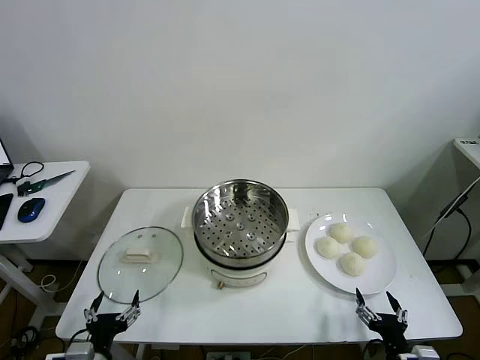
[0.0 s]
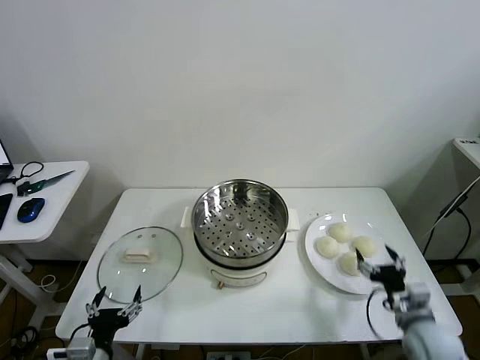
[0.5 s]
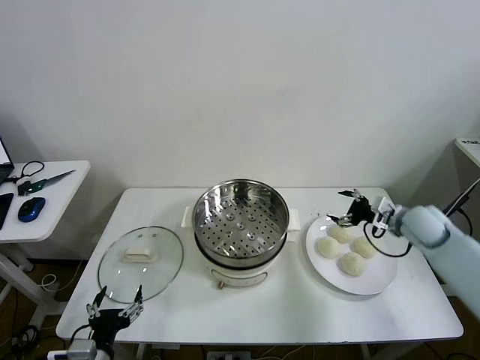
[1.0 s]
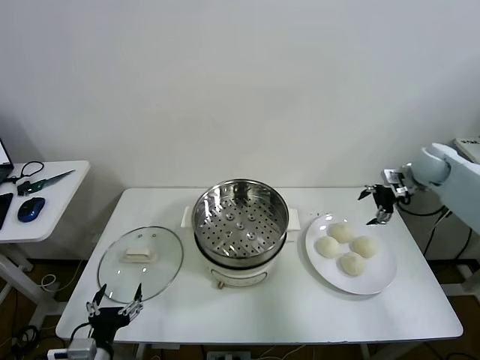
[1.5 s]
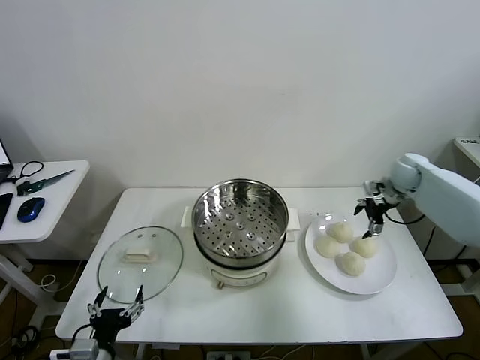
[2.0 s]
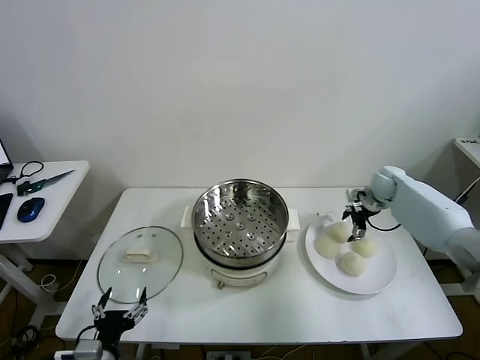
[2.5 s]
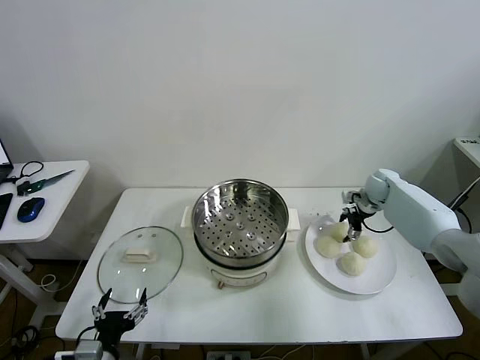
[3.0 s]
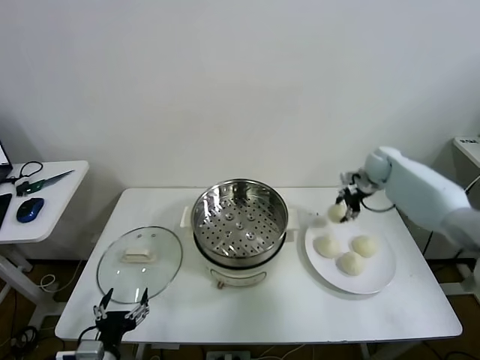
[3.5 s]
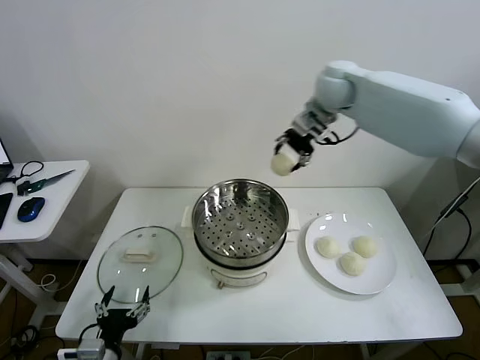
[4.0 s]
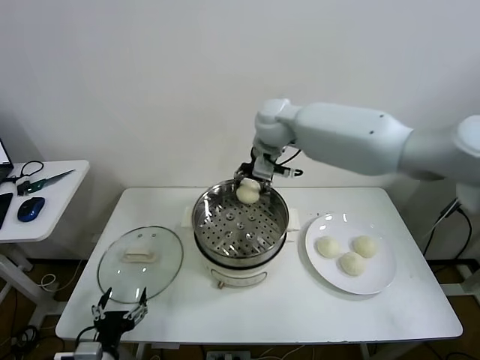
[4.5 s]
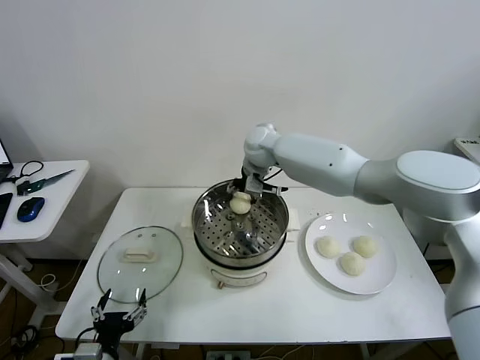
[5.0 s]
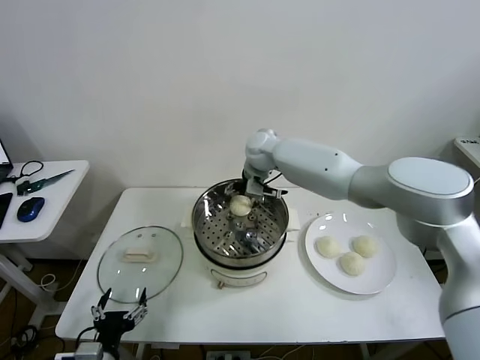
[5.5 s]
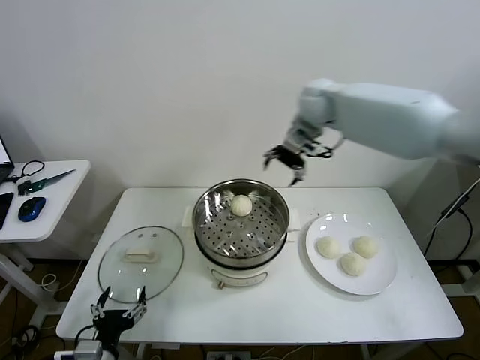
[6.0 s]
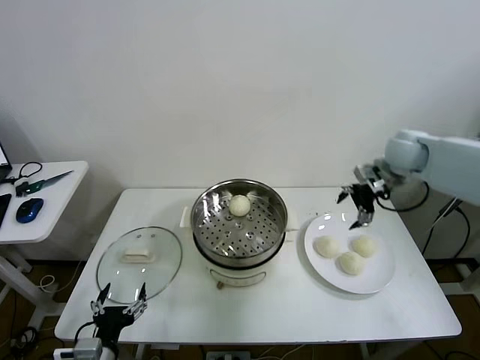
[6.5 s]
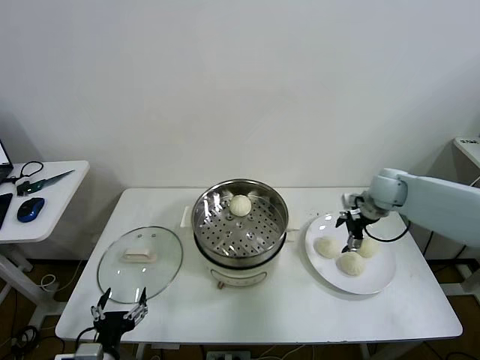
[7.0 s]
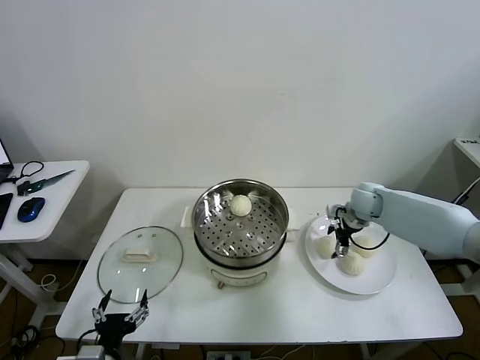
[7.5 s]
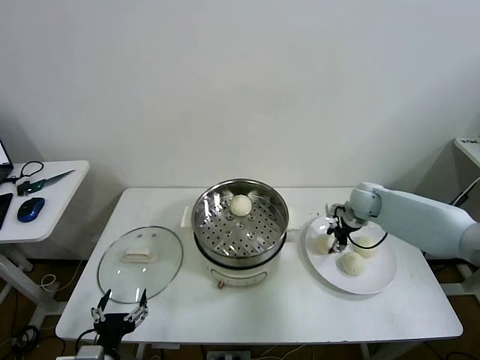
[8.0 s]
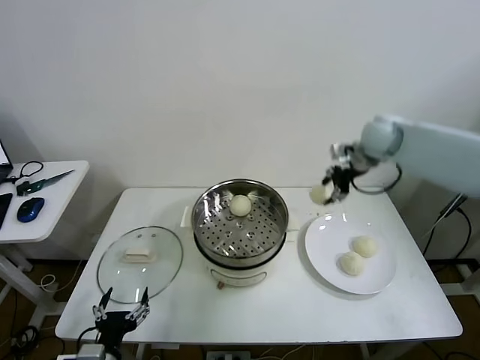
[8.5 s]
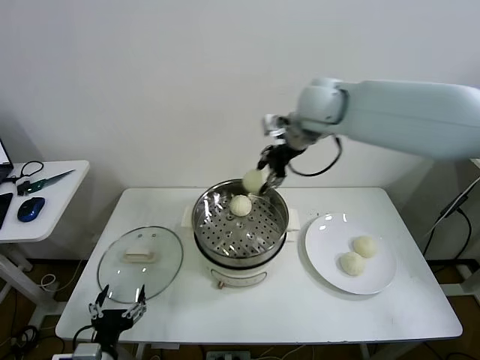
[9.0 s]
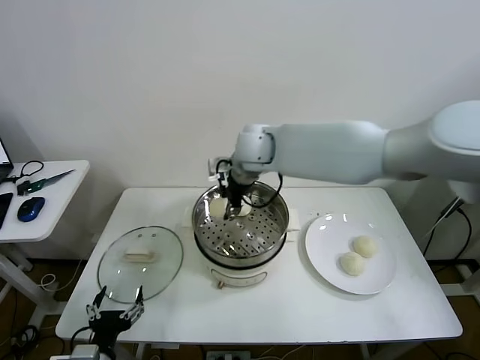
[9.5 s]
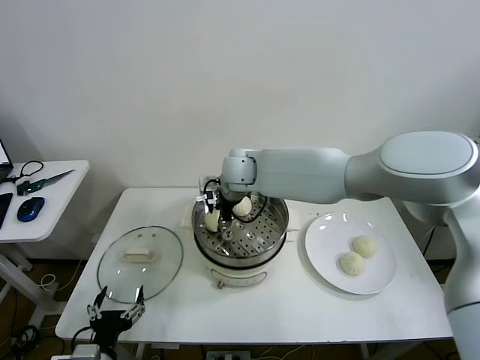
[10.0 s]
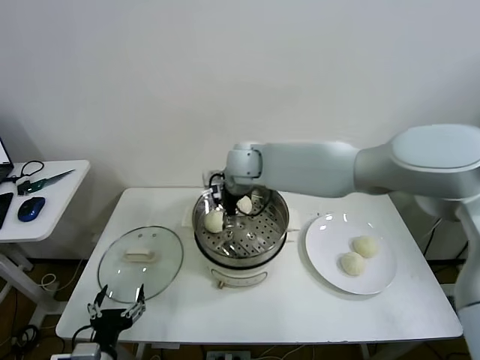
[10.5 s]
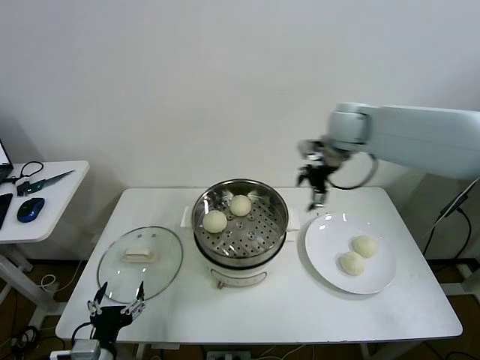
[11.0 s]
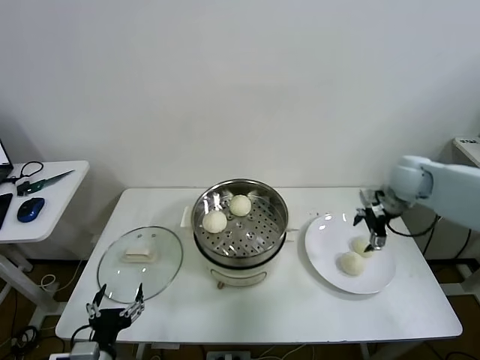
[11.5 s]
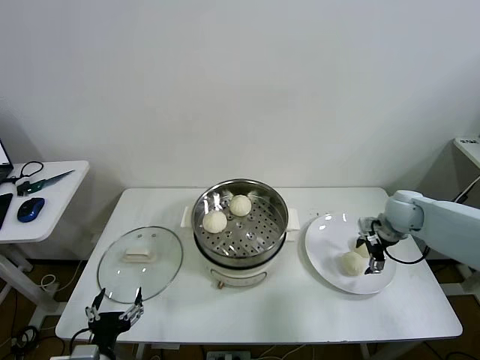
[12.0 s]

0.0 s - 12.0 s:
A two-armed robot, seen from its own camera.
Task of the whole recording: take steamed baozi put them in steamer then cover it.
Step, 0.0 s - 3.0 s: Grasp the baozi in the plate with right gripper.
Step, 3.5 s - 5.5 s: Place the baozi on the steamer with right gripper.
Step, 6.0 s - 7.5 s: Grasp the baozi in the plate with right gripper.
Step, 8.0 s - 10.0 s: Place the baozi on the steamer with right gripper.
2.0 s - 4.0 s: The right gripper is displaced to the left and upward by roughly 35 cm, and closes.
4.0 s - 6.0 s: The right gripper travels to the right by approximately 10 cm, and opens.
6.0 s - 8.0 s: The right gripper heads downward and to the right, covering roughly 25 cm, and closes its fingers.
8.0 s - 10.0 s: The right gripper goes approximately 35 cm to the left.
10.0 s - 12.0 s: The right gripper heads to the right, covering some 40 cm, and opens.

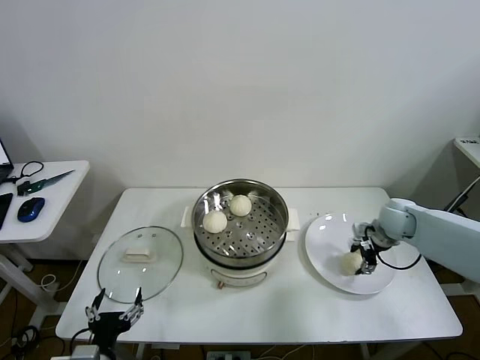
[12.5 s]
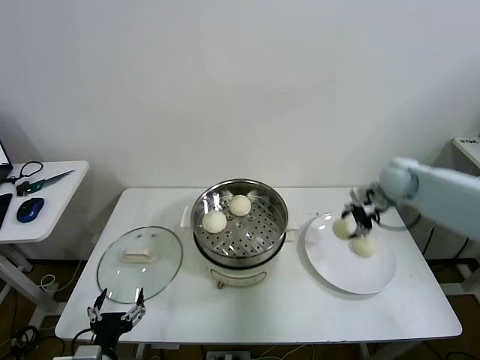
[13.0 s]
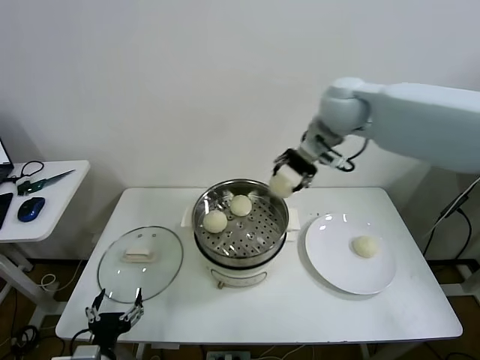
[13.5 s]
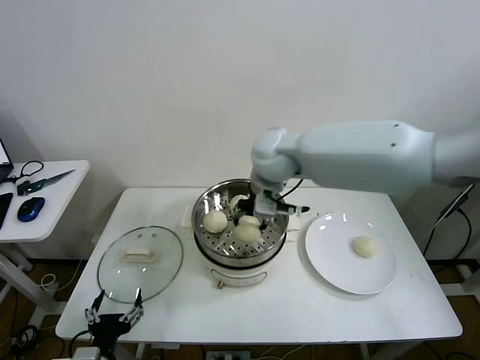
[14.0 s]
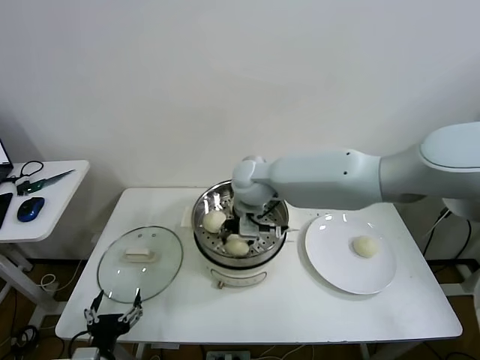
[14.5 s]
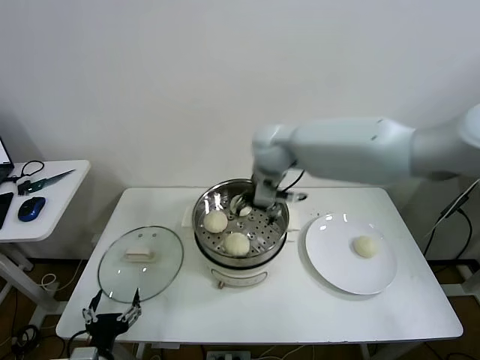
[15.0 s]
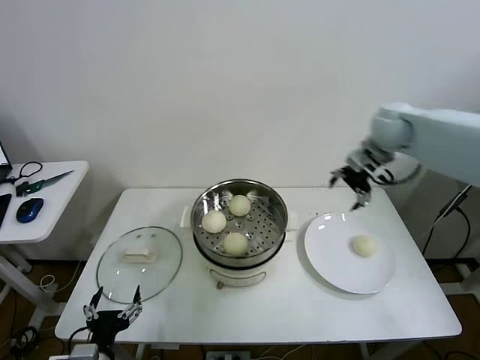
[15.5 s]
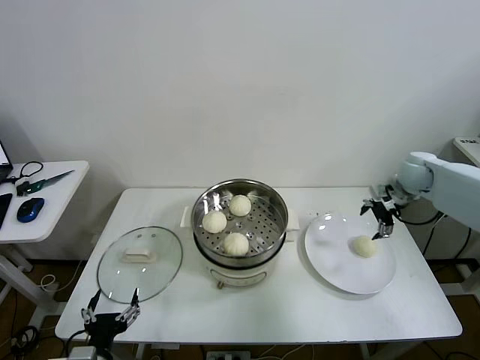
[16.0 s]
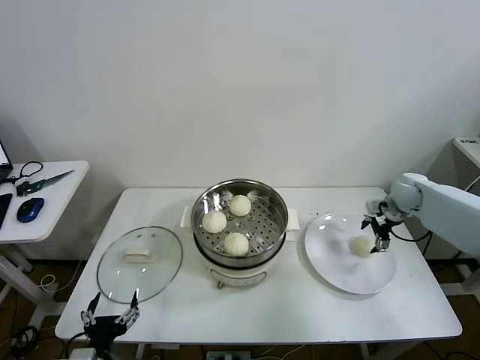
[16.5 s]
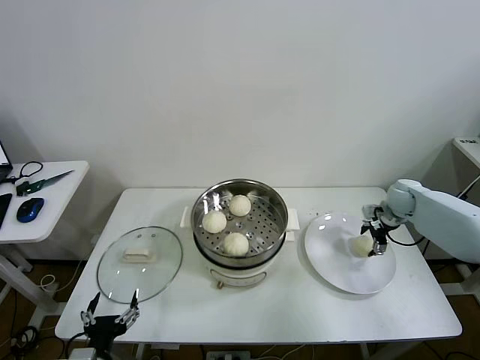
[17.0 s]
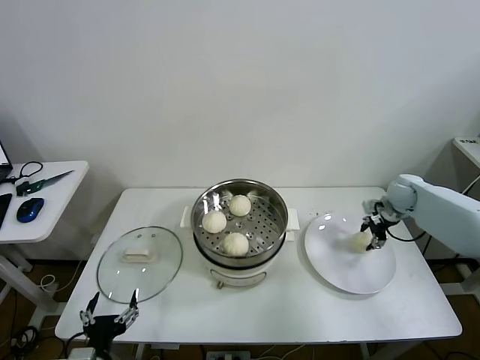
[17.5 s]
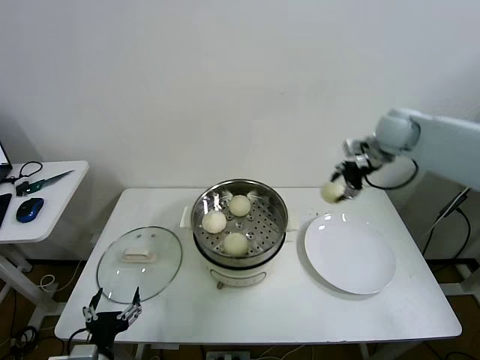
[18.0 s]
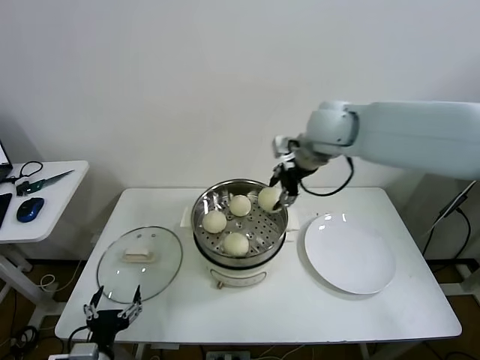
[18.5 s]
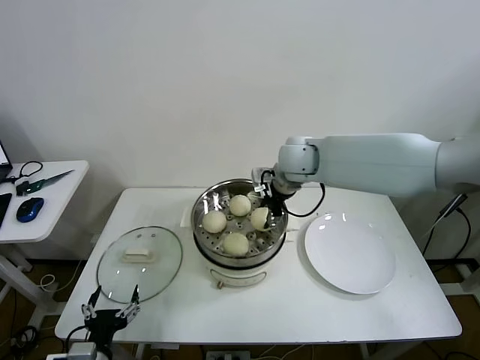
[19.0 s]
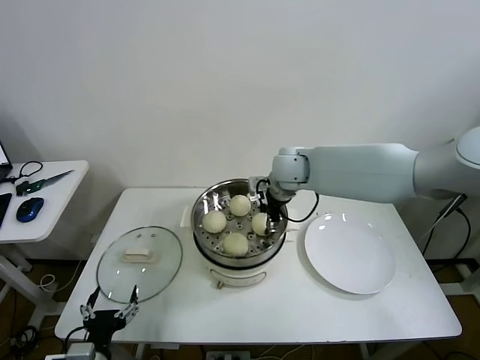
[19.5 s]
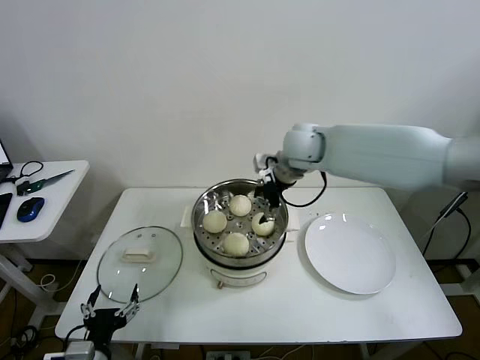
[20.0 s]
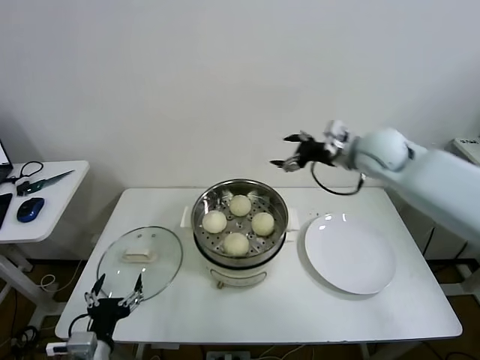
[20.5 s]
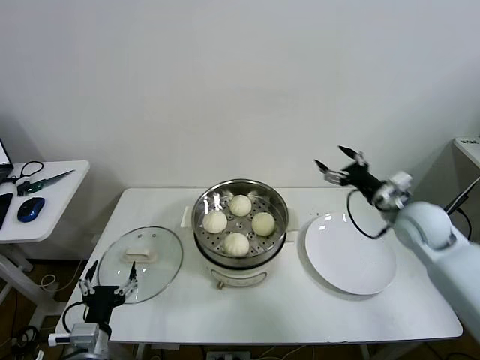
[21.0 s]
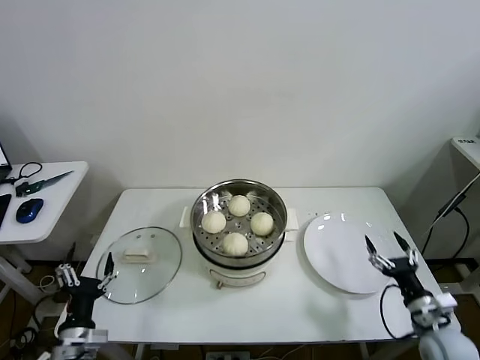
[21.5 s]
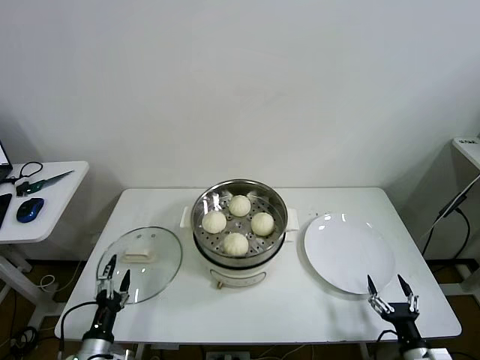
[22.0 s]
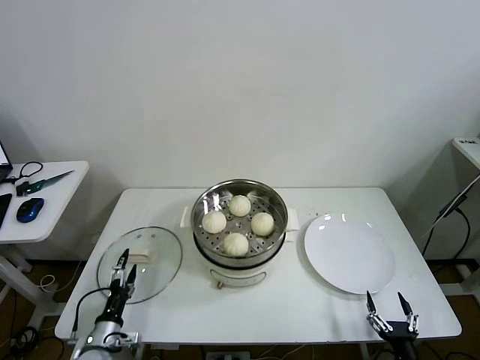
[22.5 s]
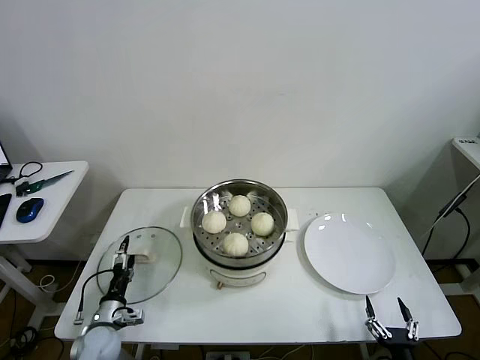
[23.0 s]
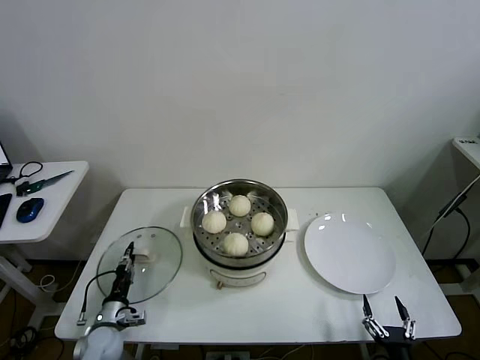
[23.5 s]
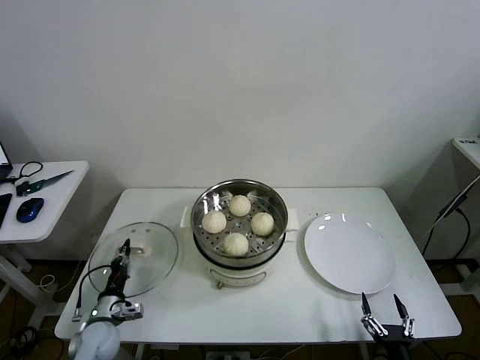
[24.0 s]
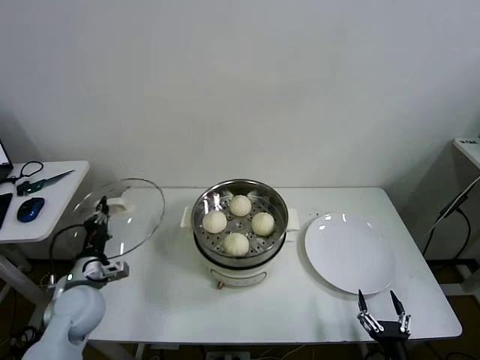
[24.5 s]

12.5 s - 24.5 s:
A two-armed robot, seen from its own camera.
Task of the whole recording: take steamed baozi put them in steamer then cover it.
Step, 12.5 s - 15.0 s: Place the baozi on the steamer with right gripper.
Step, 15.5 s - 17.0 s: Grasp the baozi in the plate with right gripper.
Step, 17.5 s - 20.0 s: Place the baozi on the steamer with right gripper.
Step, 20.5 s - 23.5 s: Grasp the pot lid with left gripper.
12.5 s - 14.5 s: The right gripper travels to the left by approximately 35 cm.
14.5 s - 16.5 s: The right gripper heads to the right, covering approximately 40 cm, and opens up.
16.5 s - 18.5 s: The right gripper goes approximately 35 cm to the left and upward, and closes its fingers.
18.5 s - 20.5 s: The right gripper goes about 15 cm to the right and downward, and opens its fingers.
20.5 s - 22.5 s: The left gripper moves downward, forward and to the left, approximately 15 cm. Meanwhile the right gripper moves backward and downward, approximately 60 cm.
22.5 s - 24.5 s: The left gripper heads upward and forward, covering approximately 15 cm, and closes up.

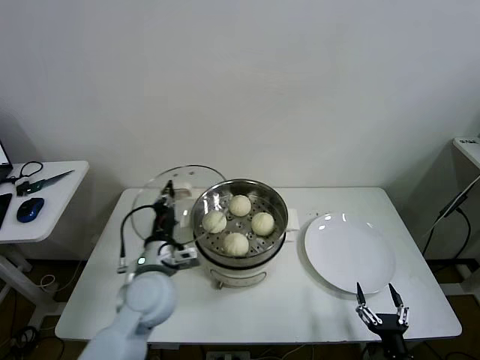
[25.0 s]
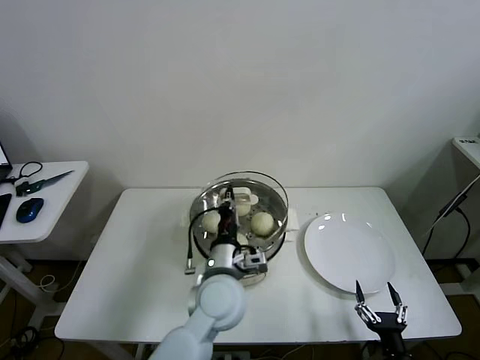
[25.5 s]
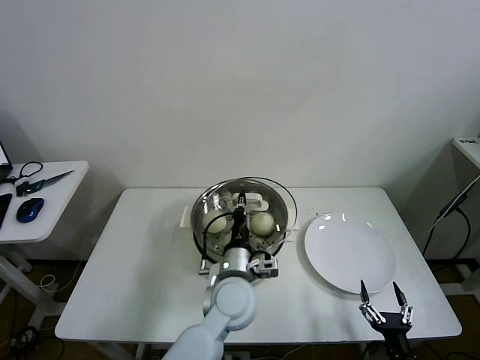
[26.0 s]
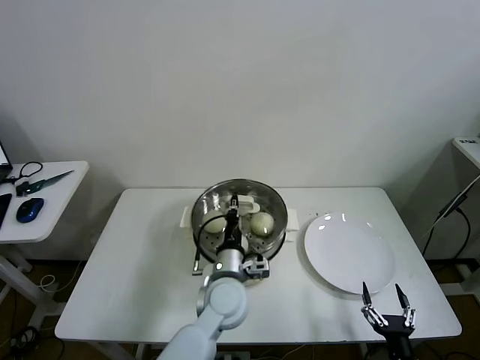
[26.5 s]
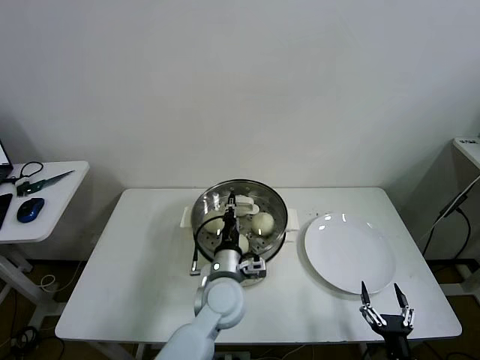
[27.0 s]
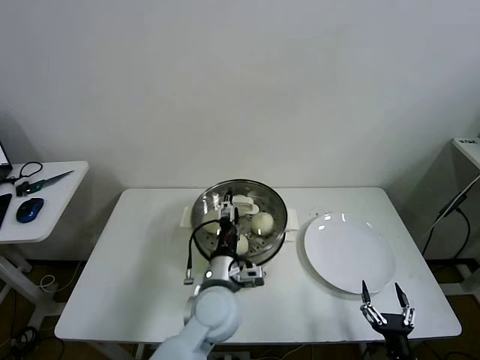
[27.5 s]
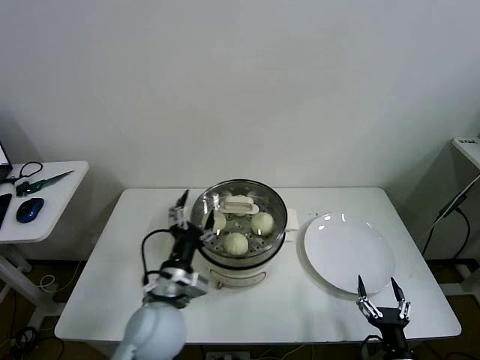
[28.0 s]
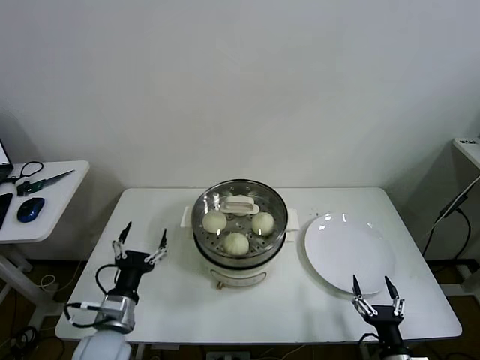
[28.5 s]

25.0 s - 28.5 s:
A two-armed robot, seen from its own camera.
Task of the whole recording: take steamed baozi put them in steamer then cover it.
Step, 25.0 s - 27.5 s: Place the pot lid on the steamer with left gripper.
25.0 s - 27.0 s: The left gripper moves to the right, some 15 cm.
27.0 s - 28.5 s: The left gripper is displaced to the left and backward by about 25 cm, and opens.
